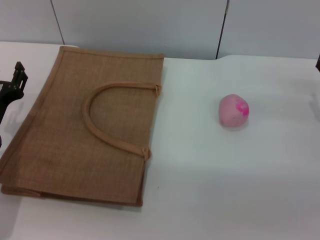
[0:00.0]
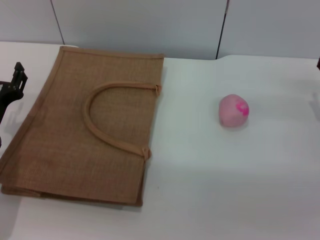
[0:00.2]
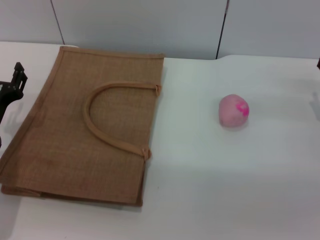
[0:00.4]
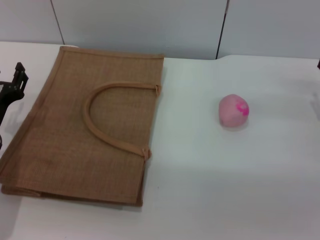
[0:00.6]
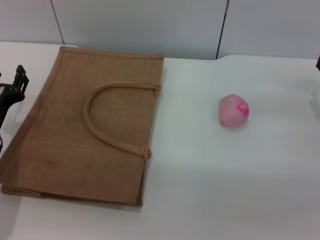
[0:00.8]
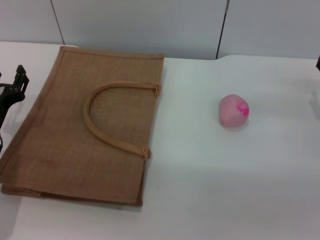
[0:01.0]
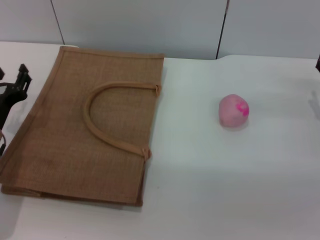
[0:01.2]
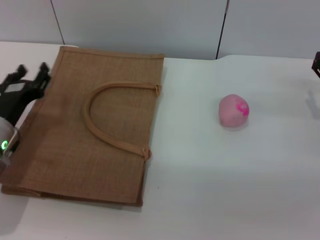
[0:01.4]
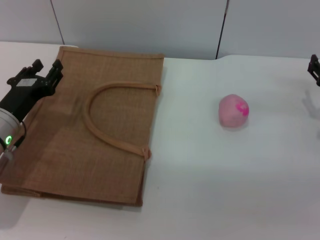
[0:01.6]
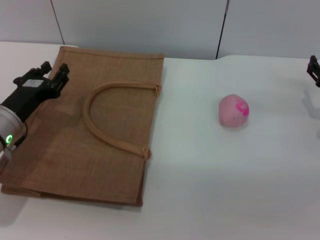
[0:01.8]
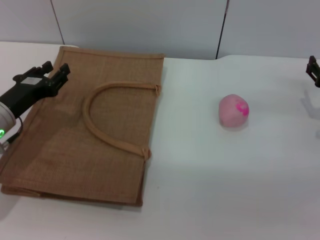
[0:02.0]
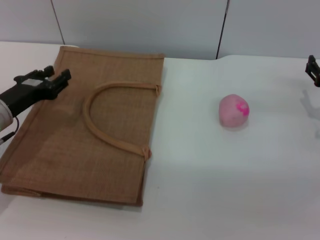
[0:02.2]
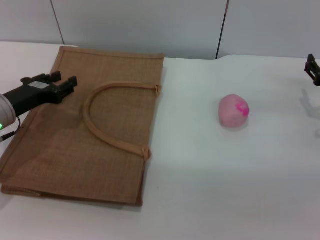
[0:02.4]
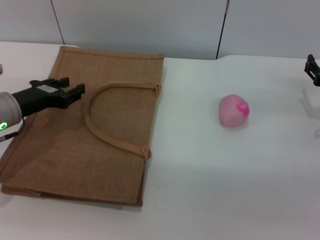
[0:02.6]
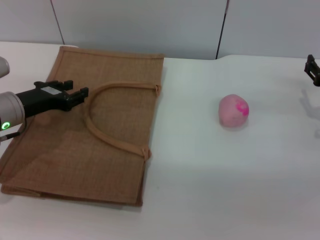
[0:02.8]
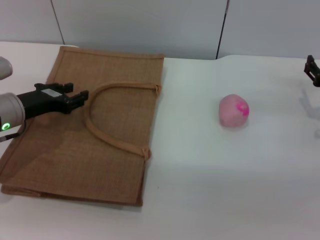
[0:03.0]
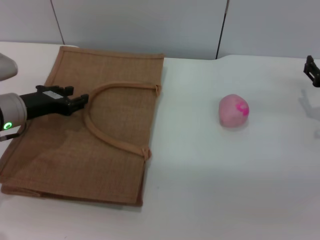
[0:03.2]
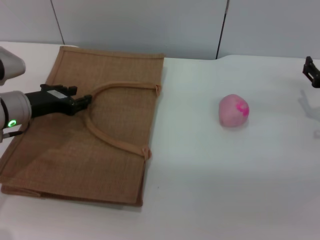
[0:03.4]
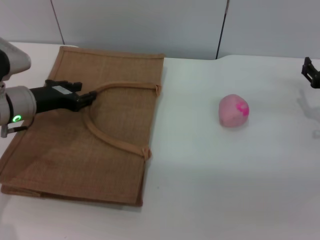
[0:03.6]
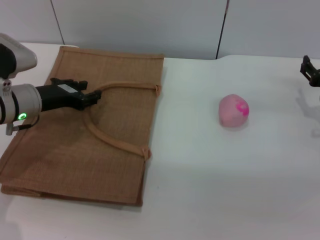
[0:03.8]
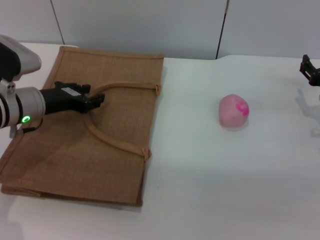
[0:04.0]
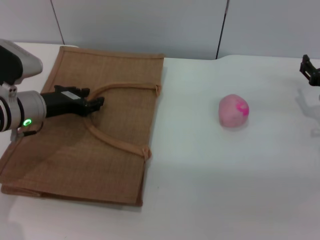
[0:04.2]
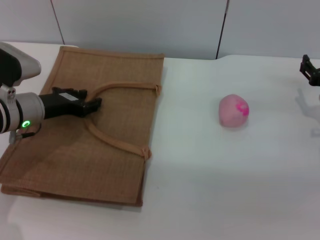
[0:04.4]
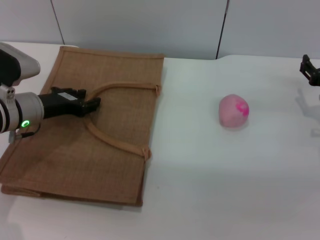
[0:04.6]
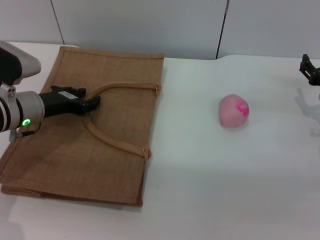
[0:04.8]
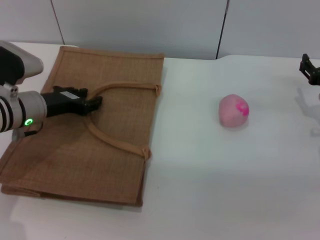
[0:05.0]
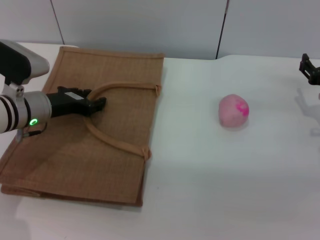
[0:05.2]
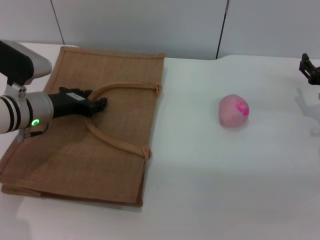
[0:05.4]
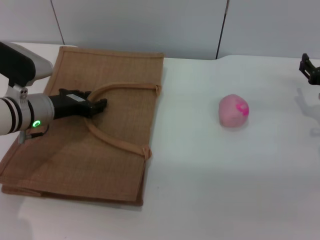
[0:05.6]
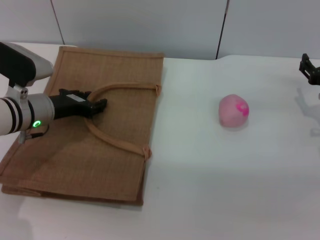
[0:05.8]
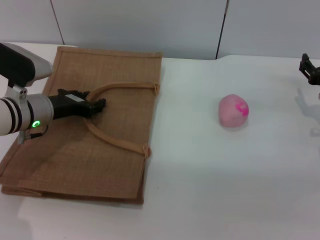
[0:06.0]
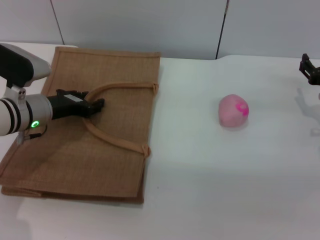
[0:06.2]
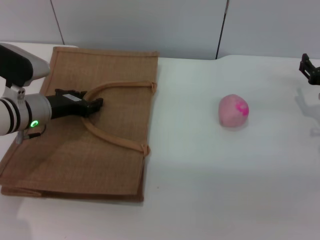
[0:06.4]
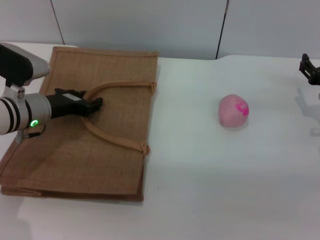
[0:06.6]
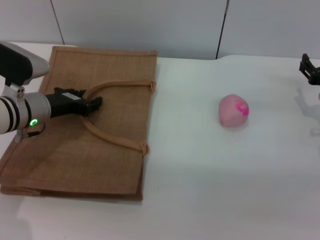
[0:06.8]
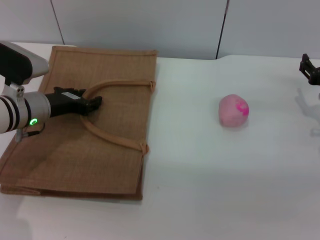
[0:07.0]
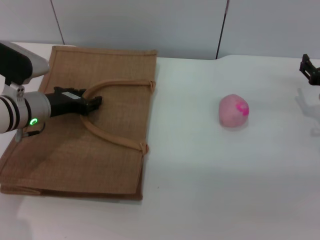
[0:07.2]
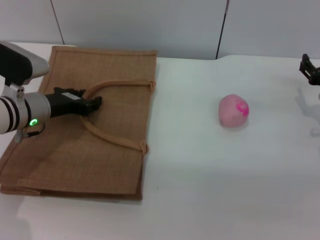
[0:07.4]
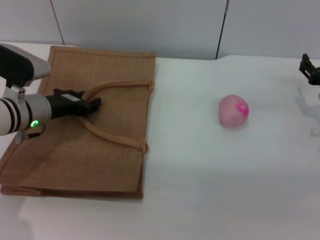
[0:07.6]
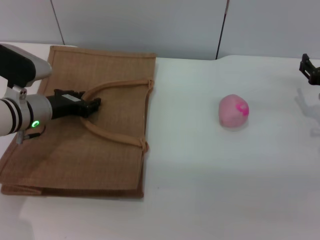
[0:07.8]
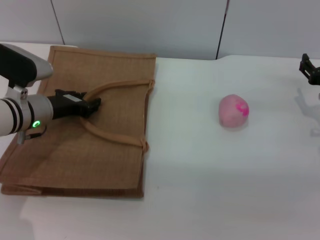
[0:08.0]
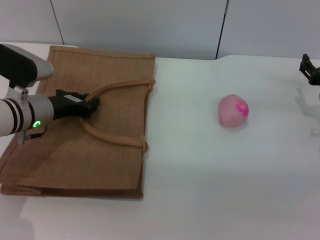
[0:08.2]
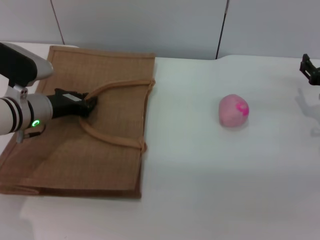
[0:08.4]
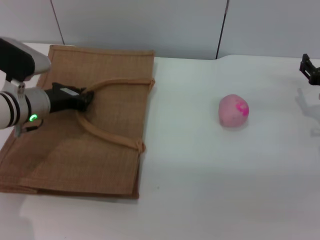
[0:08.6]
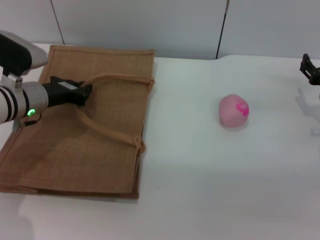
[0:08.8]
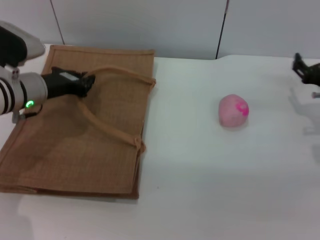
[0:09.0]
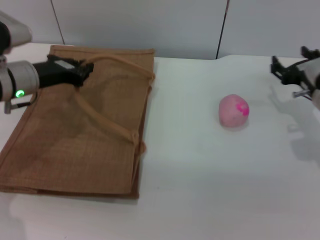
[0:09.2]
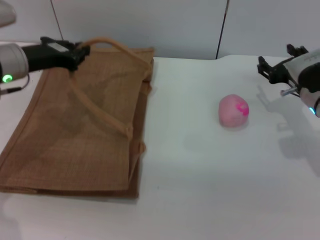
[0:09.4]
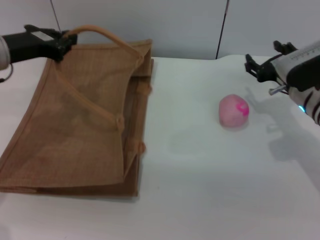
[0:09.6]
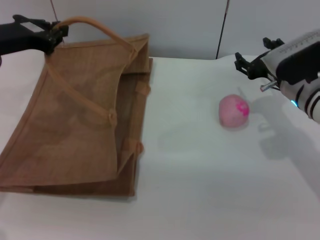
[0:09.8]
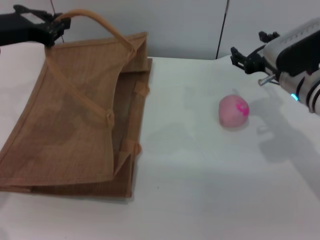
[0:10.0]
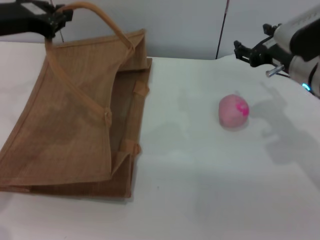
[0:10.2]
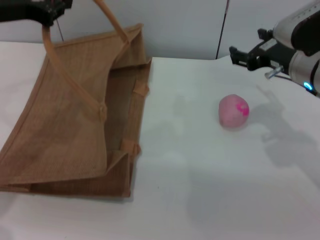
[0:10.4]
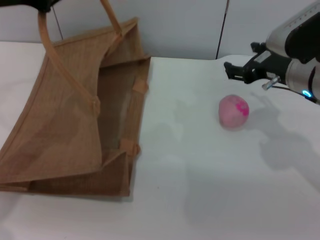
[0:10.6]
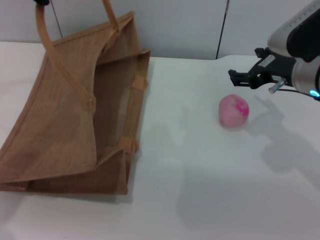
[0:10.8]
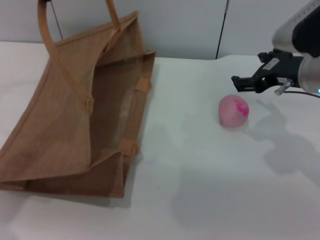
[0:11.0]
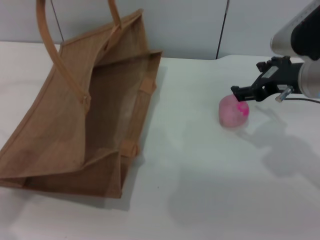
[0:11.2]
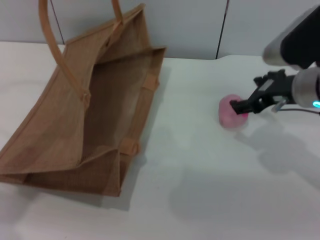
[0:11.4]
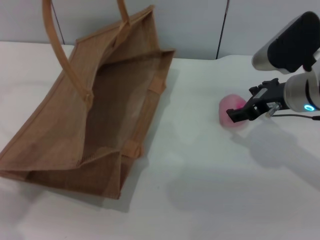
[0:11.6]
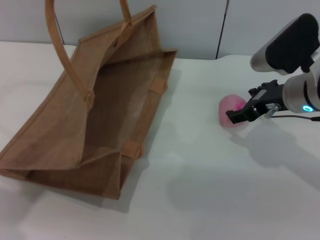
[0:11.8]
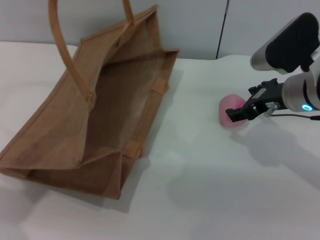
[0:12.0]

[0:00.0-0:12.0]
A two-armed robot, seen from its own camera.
Task of the whole recording: pick up the peach from the table and place it in the brown handbag.
Step, 0:00.0 to 0:08.8: Lift the woven bag with the left gripper to open it.
0:00.0 to 0:01.6: The grippers make only small movements.
0:03.0 to 0:06.0: The grippers move only a little.
0:06.0 to 0:07.6: Both grippers stay about where they are.
0:07.6 to 0:09.0: The left gripper closes up.
0:09.0 to 0:10.4: The right gripper moves upward and to the left, about 10 cm, while the left gripper heads upward, covering approximately 15 cm.
0:10.4 to 0:12.0: The left gripper goes about 5 cm upward.

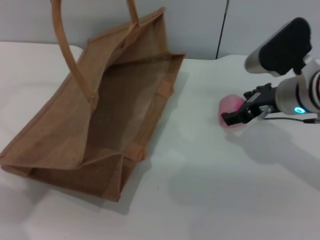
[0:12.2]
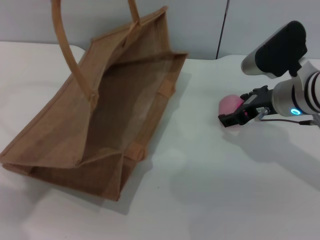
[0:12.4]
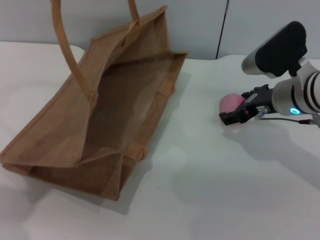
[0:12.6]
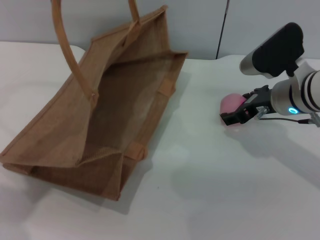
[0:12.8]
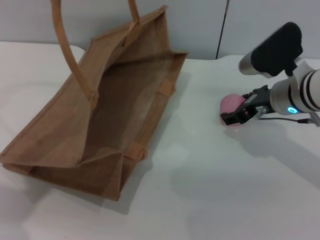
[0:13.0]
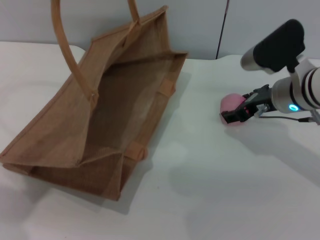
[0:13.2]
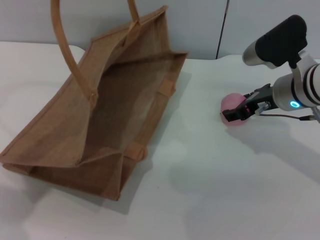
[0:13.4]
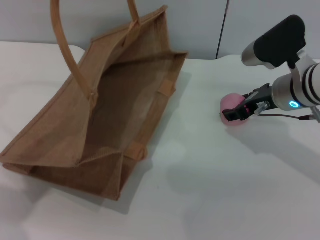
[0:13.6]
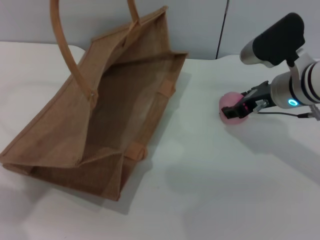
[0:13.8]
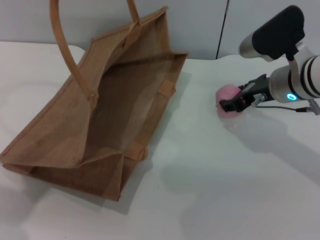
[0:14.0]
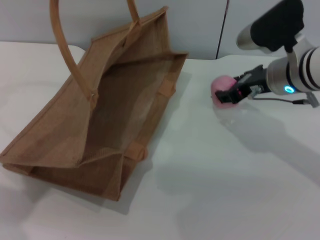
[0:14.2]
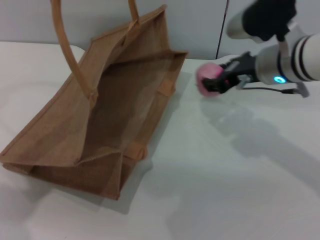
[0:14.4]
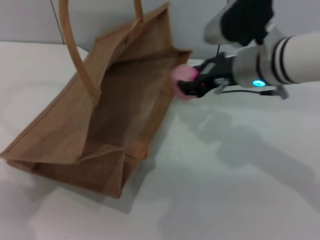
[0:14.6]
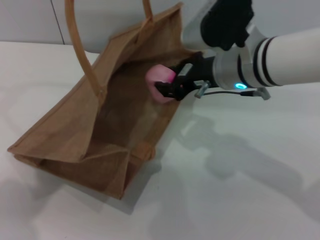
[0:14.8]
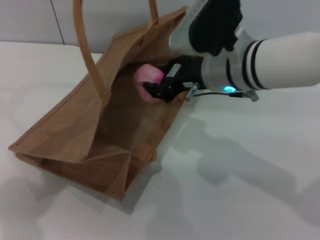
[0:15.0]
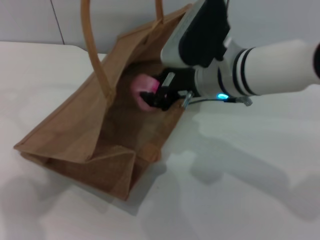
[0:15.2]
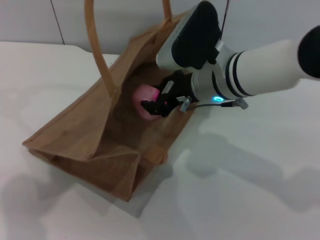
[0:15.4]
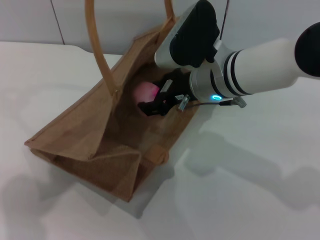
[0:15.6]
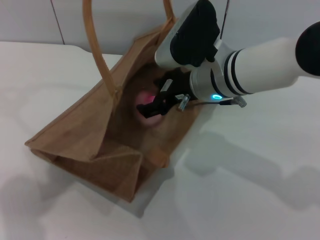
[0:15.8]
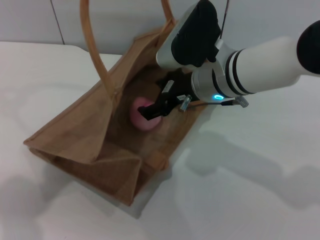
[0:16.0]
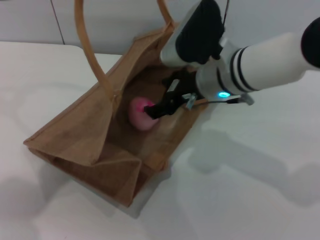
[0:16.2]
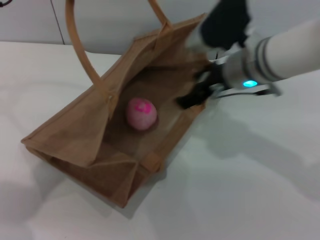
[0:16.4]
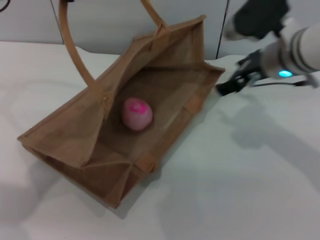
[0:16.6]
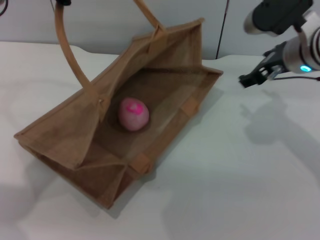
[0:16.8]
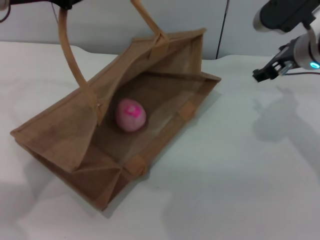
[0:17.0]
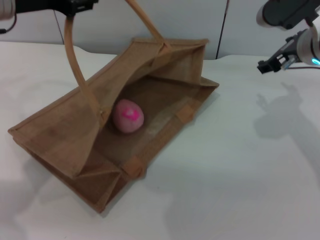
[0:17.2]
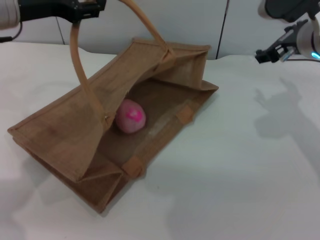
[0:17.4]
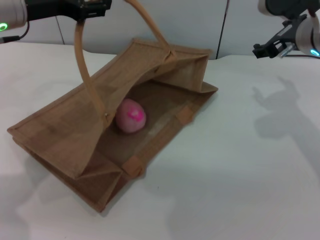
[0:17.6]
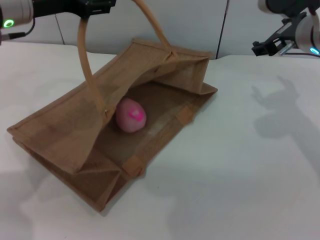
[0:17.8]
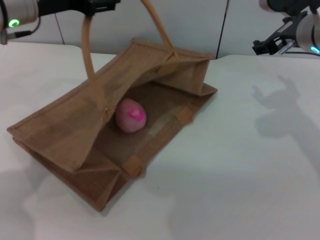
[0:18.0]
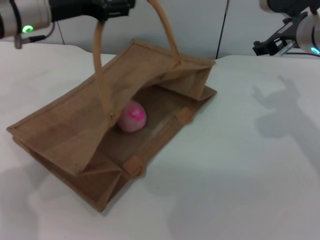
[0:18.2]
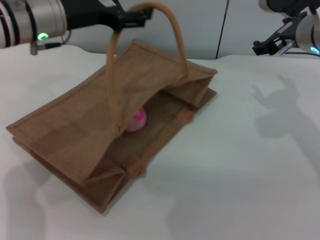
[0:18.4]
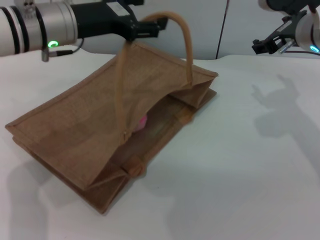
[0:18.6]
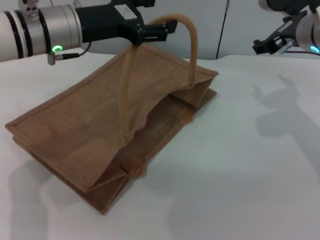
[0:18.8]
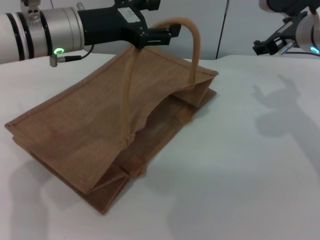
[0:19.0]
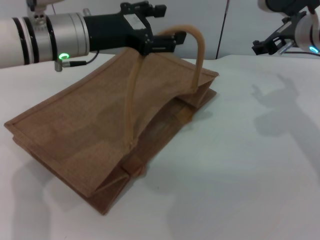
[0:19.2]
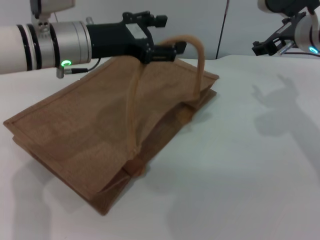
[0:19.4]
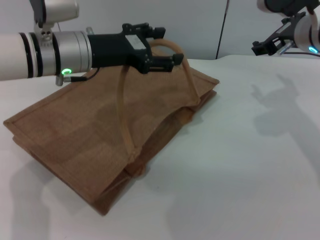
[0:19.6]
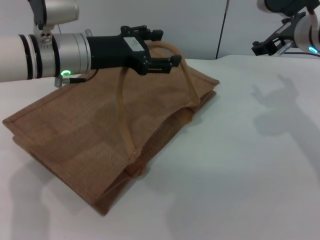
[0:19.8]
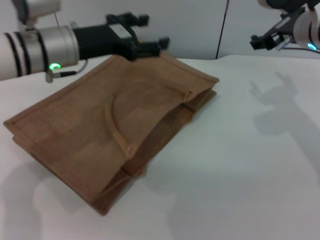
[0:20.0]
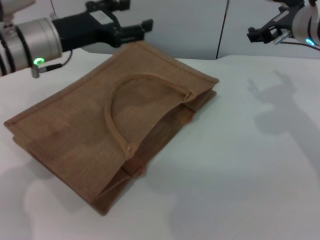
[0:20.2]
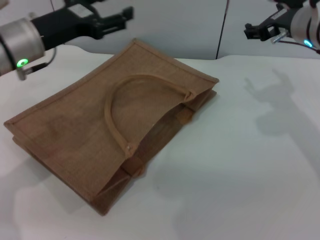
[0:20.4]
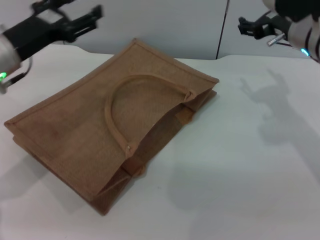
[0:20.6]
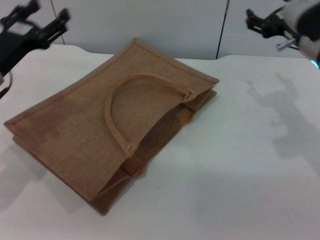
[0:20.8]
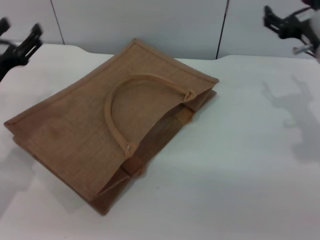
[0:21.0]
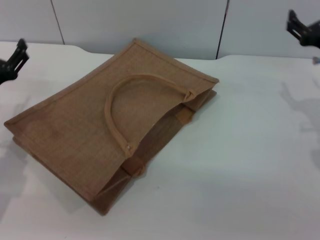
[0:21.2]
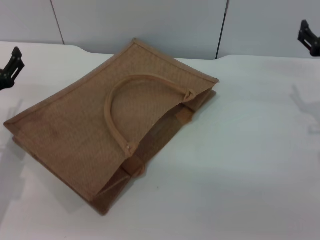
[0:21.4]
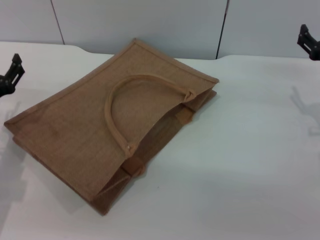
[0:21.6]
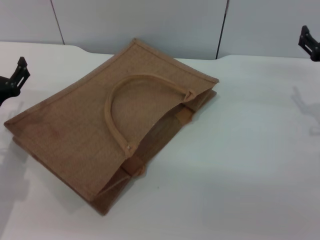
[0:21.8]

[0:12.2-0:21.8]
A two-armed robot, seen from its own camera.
Task of the whole recording: pick up the peach from the table and place it in the brown handbag.
Step, 0:12.2 to 0:14.2: Pick up the peach with the right gripper.
Step, 0:14.6 to 0:16.6: Place the peach into the woven bag with the right gripper.
Step, 0:17.0 to 0:19.8: Lower the woven bag with the left gripper to close it.
0:12.2 to 0:13.8: The right gripper closes its fingers.
0:13.8 to 0:15.4: The right gripper goes approximately 10 cm to the left, and closes up.
0:15.4 to 0:17.0: The left gripper shifts some 5 cm downward, while the right gripper shifts roughly 15 cm to the right, and opens up.
0:17.0 to 0:18.6: The left gripper moves downward and to the right, about 10 cm, and opens its fingers.
0:18.6 to 0:20.2: There are only small adjustments of the grippers.
0:20.2 to 0:21.8: The right gripper heads downward, to the right and backward, covering roughly 15 cm; the left gripper travels downward, backward and to the left by approximately 20 cm.
